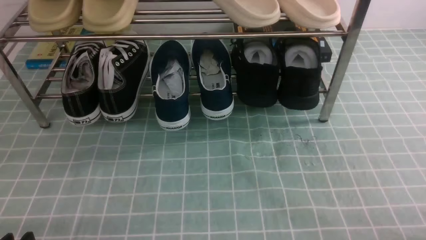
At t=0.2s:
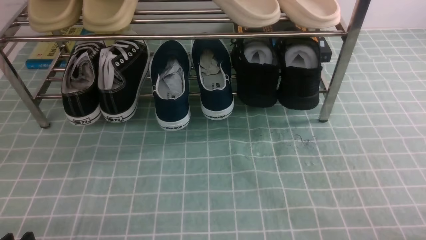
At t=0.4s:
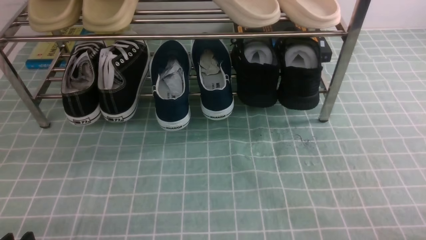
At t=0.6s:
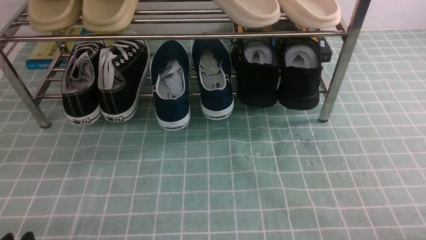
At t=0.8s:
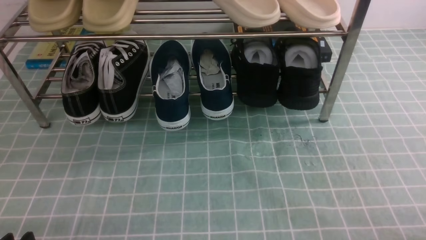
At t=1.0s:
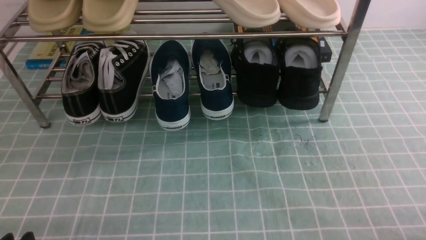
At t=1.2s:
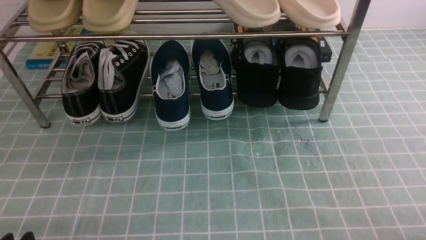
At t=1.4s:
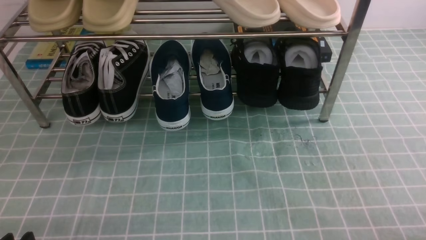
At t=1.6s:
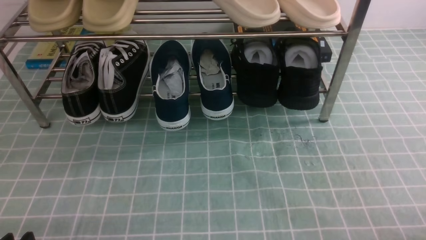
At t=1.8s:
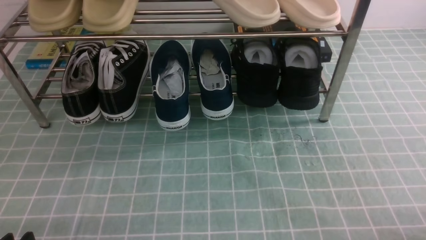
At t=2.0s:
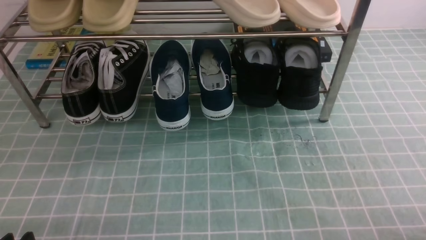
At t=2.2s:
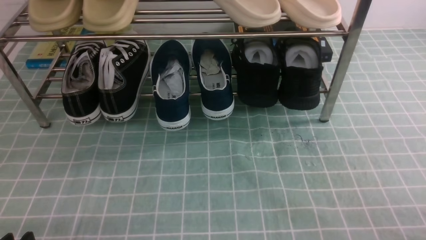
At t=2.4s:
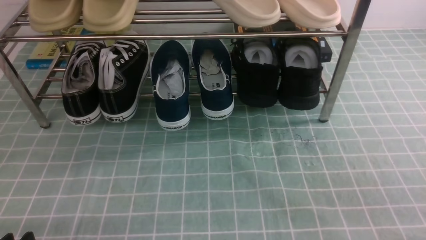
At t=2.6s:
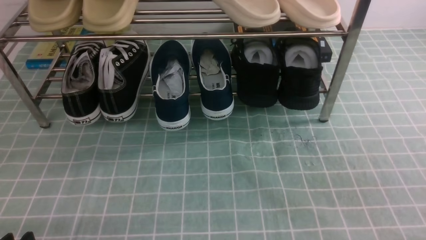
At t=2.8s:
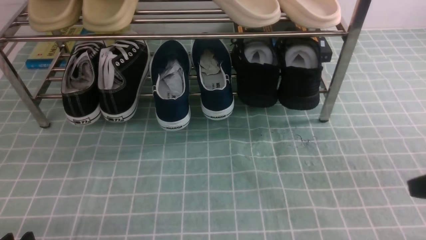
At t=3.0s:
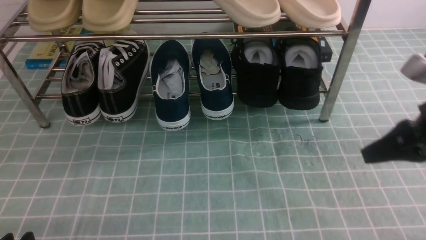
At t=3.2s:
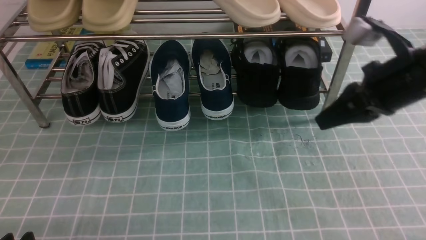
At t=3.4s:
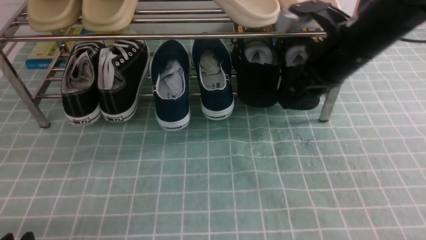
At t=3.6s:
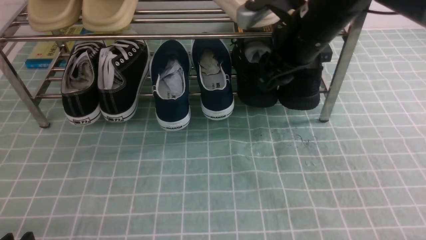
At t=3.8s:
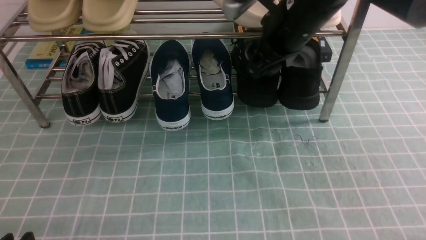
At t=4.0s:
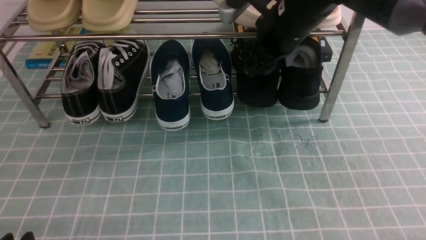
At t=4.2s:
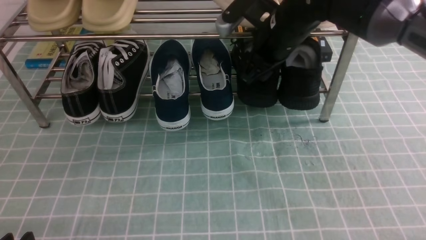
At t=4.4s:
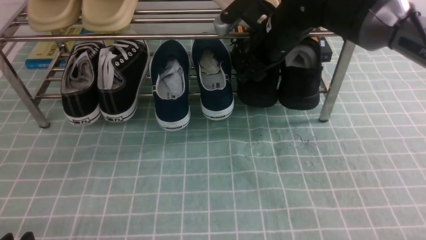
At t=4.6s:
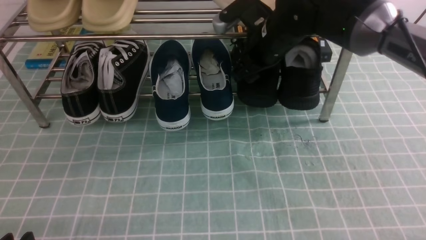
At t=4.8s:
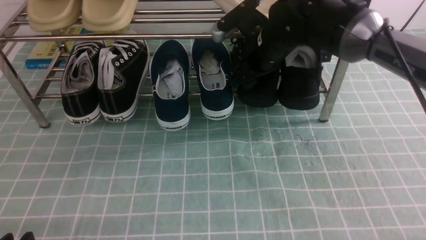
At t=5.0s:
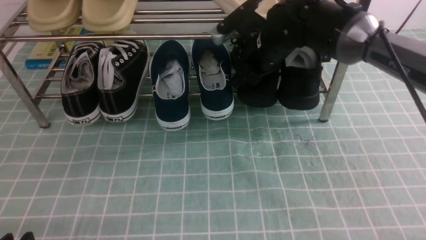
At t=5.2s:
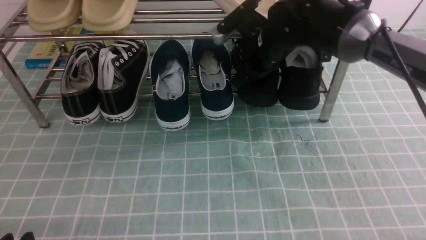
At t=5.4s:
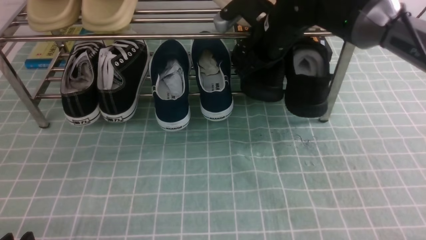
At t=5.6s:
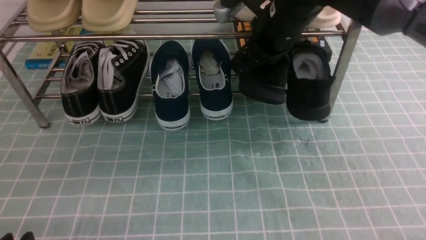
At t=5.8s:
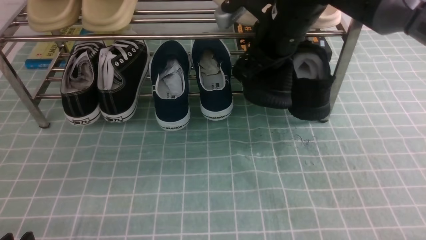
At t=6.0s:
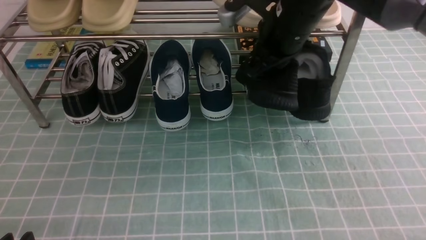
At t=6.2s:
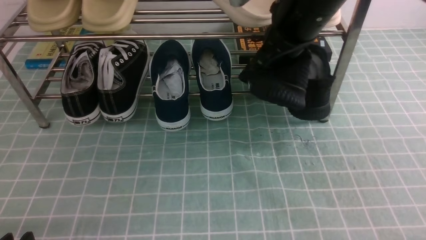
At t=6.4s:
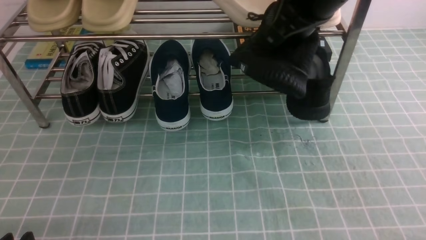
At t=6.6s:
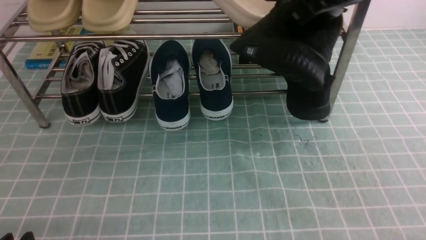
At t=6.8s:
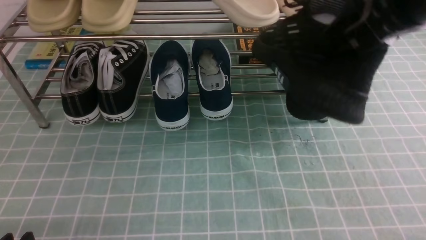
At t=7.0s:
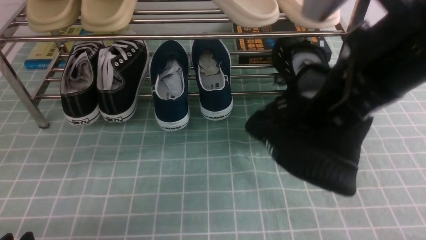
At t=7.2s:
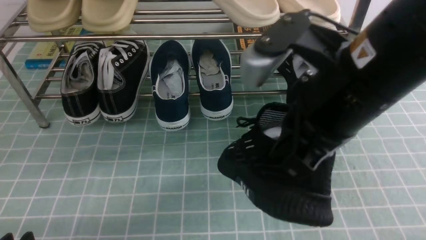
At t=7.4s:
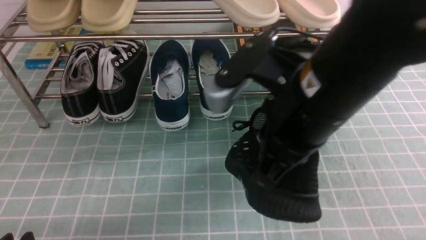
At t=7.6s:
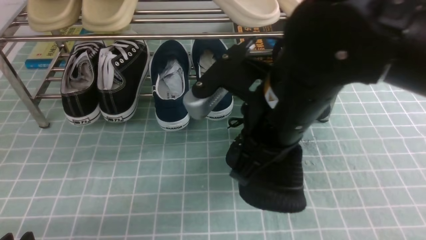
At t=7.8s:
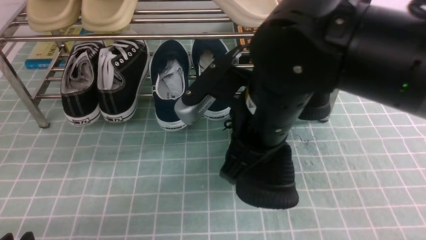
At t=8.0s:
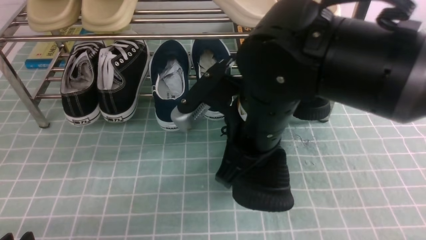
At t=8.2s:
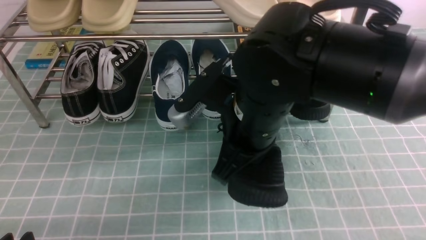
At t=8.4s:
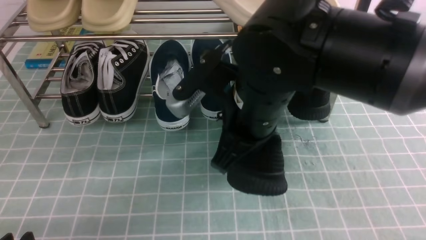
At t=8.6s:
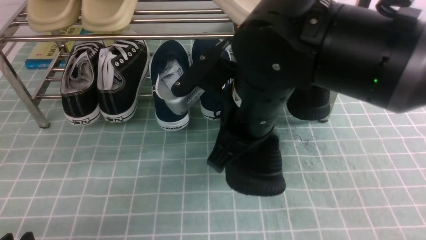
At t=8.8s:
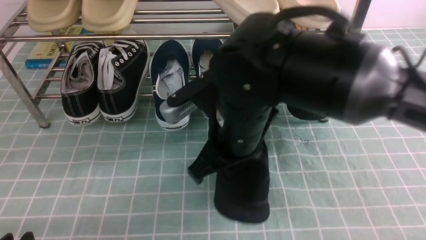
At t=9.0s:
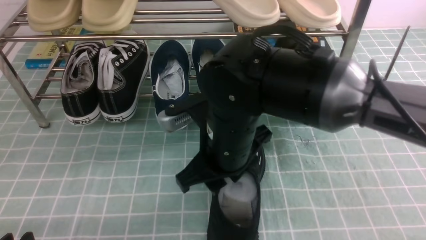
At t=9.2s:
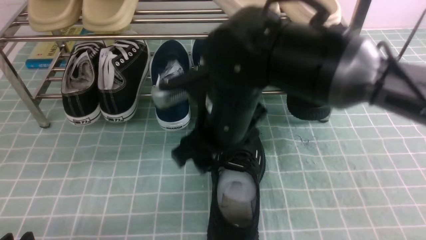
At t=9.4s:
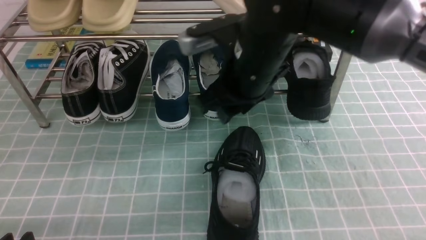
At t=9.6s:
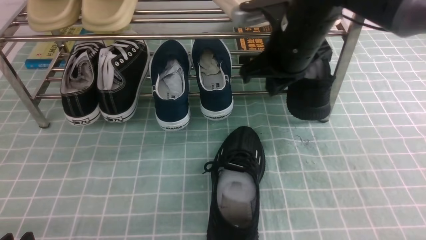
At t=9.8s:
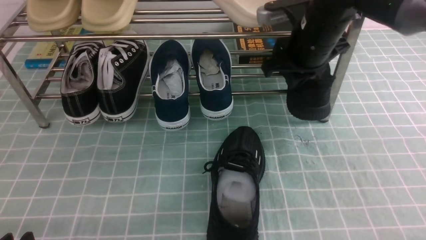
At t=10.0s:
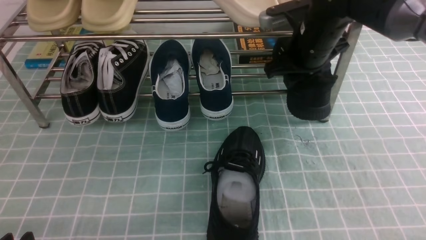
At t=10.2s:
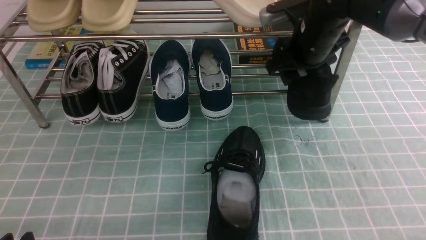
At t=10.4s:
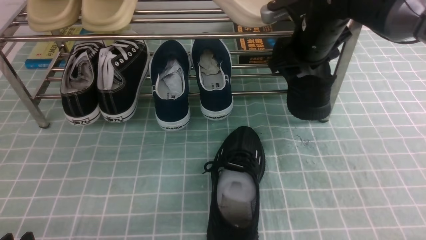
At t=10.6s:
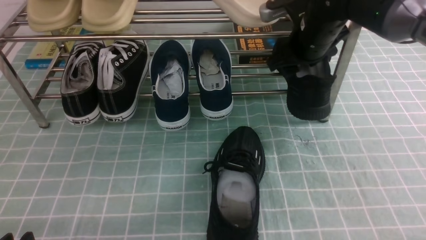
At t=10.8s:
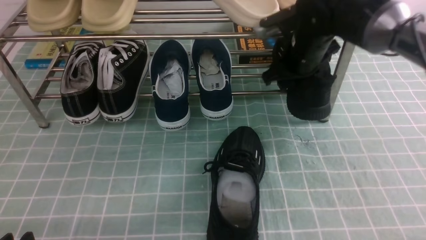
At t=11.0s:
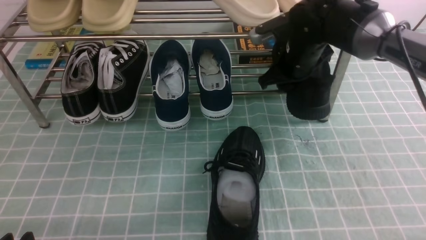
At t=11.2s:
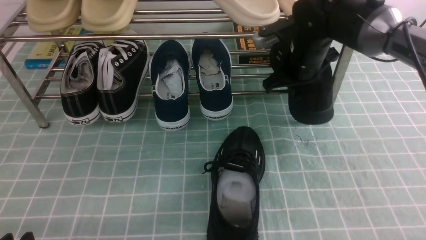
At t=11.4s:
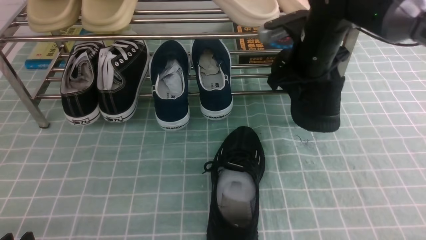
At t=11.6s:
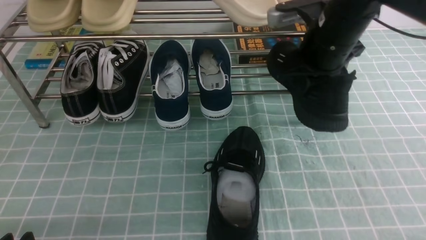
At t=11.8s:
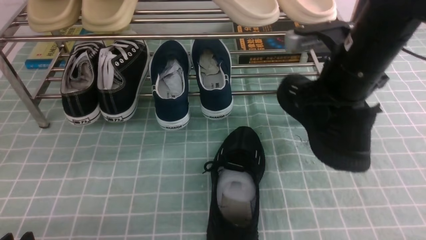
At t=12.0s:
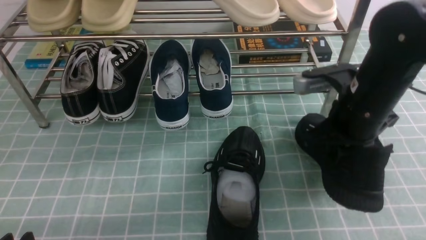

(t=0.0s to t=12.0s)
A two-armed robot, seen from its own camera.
Step, t=0.0s - t=5.0s: use the right arm to clamp a shoe on the right side of the shoe rack.
Step, t=5.2s - t=9.6s: use the right arm to take out the clamped shoe from the shoe rack and put it down.
Step, t=9.8s - t=11.4s: use the right arm to clamp a shoe on the right side of the shoe rack.
t=1.6s - t=3.0s: The right gripper goes approximately 25 cm forward and upward, and closes its fingers.
t=3.0s - t=4.4s: The right gripper heads forward and to the left, covering some 25 cm, and opens up.
t=4.4s - t=6.0s: The right gripper is displaced upward by some 5 cm, and closes up.
t=6.0s - t=7.6s: The right gripper goes some 15 cm backward.
t=7.6s - t=9.0s: The right gripper moves downward and to the left, roughly 5 cm, and opens up.
t=9.0s - t=10.4s: The right gripper is displaced forward and to the right by roughly 20 cm, and closes, then reopens.
t=10.4s - t=12.0s: The right gripper shifts approximately 10 cm backward, and closes up.

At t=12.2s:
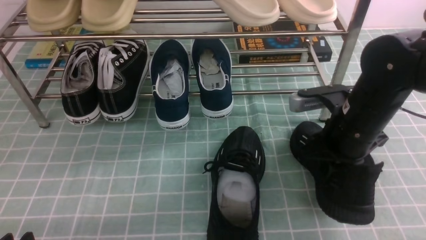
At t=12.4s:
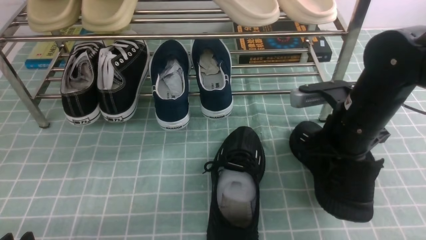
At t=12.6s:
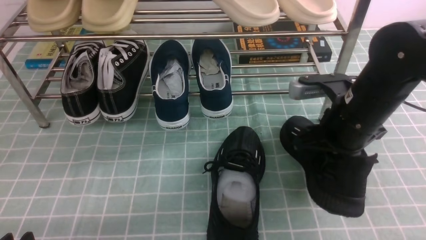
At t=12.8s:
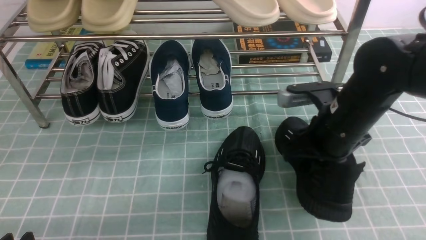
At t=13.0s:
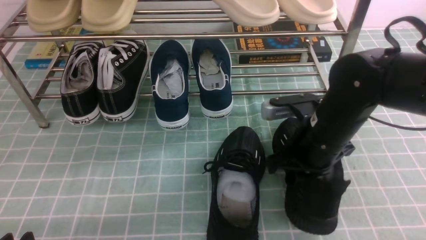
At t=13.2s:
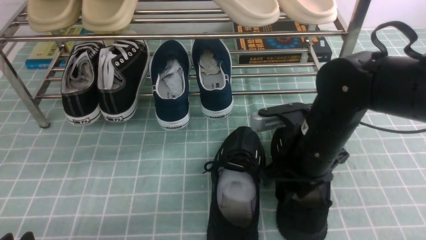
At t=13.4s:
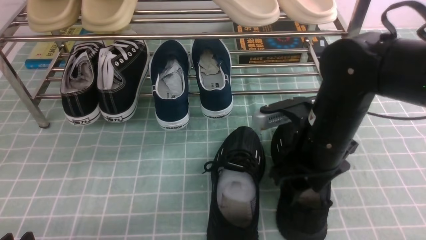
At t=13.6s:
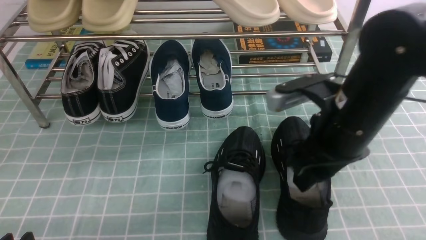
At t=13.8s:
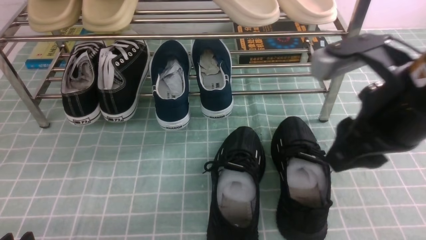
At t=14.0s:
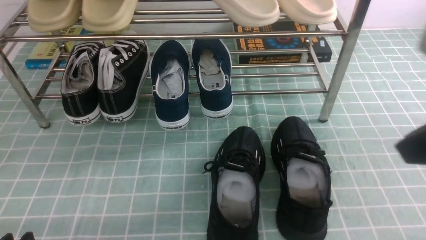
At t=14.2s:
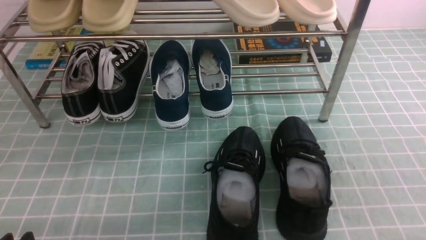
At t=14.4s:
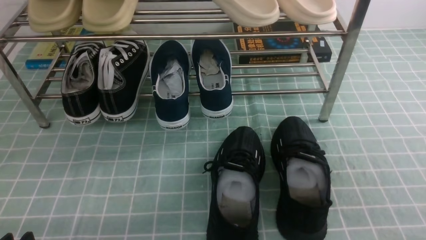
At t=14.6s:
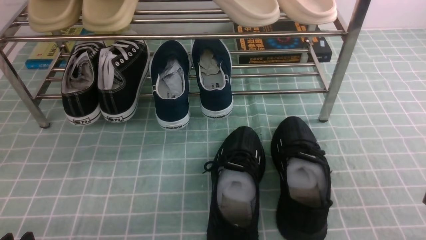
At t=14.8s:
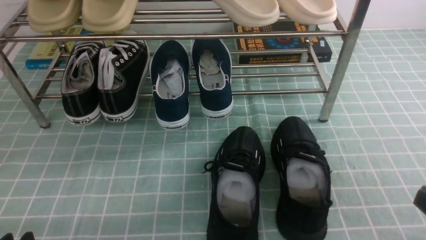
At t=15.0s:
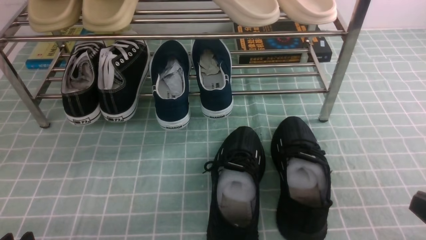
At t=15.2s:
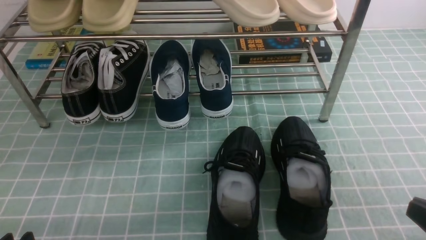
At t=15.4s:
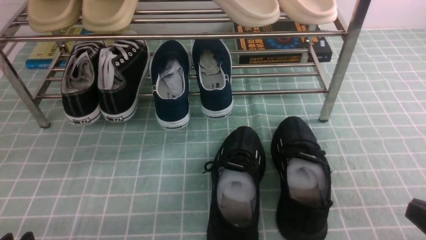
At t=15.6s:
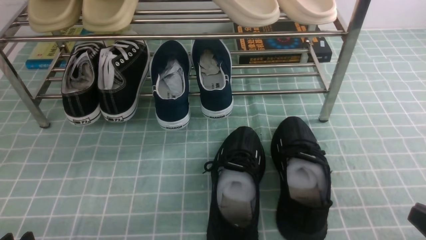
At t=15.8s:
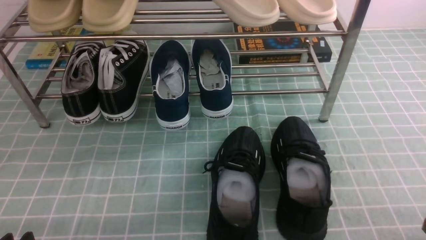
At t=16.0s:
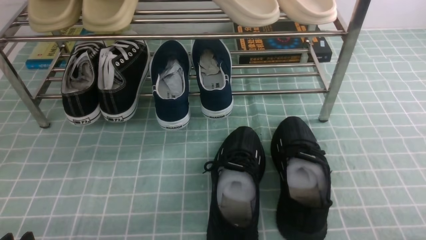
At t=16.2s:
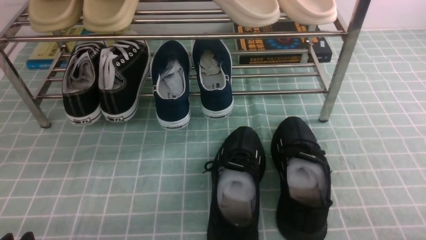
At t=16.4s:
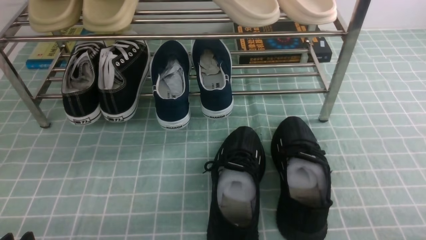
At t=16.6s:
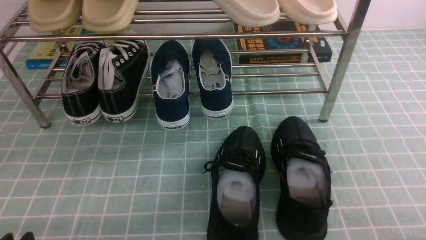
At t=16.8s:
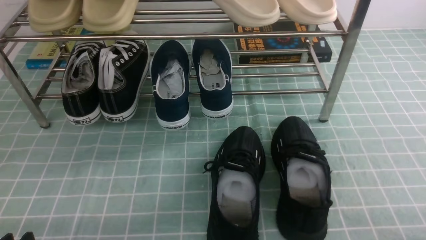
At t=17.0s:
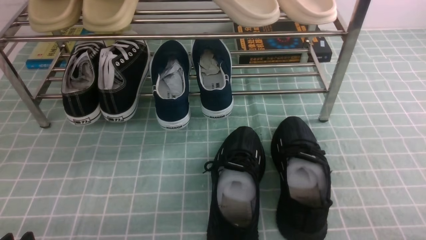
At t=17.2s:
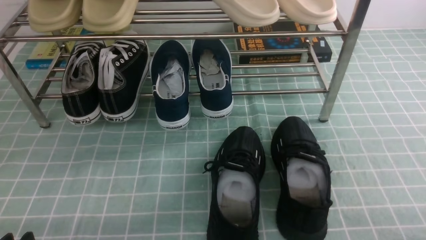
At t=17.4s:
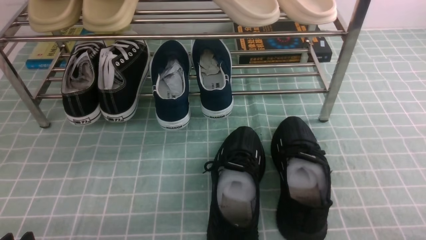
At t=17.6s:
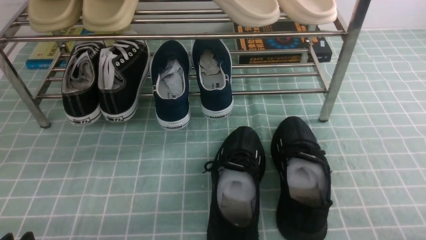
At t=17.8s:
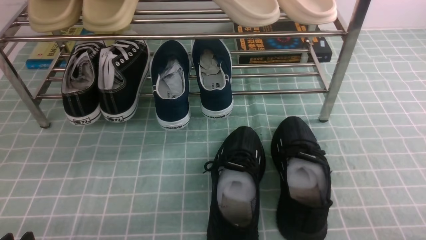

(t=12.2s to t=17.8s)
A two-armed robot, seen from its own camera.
Step, t=12.2s - t=13.6s: use the right arm to take out the clamped shoe from the shoe rack and put it down.
t=12.2s - t=13.6s: The right gripper is displaced upward and backward by some 10 cm, and opens.
t=13.6s - t=15.0s: The right gripper travels backward and to the right by approximately 20 cm, and closes its fingers.
t=16.4s - t=17.8s: Both grippers stay about where they are.
